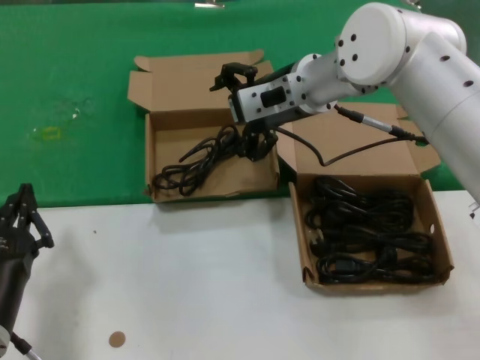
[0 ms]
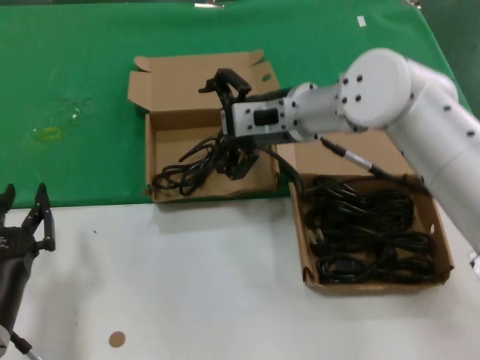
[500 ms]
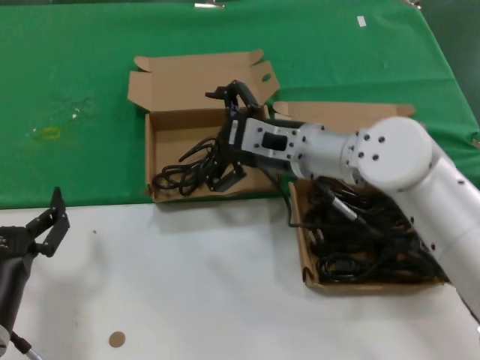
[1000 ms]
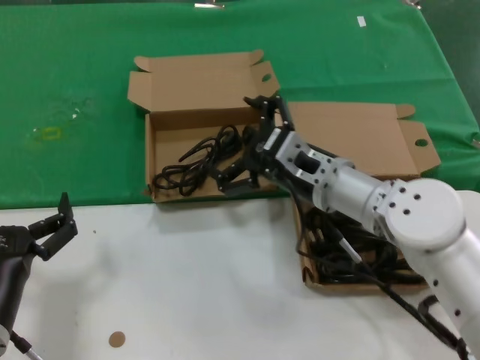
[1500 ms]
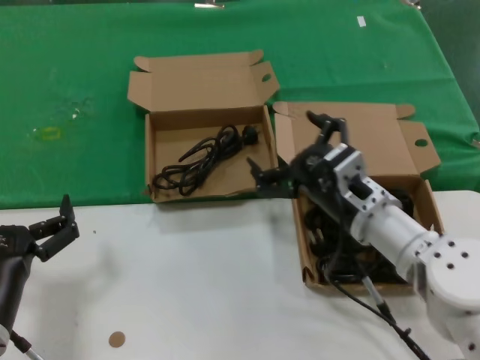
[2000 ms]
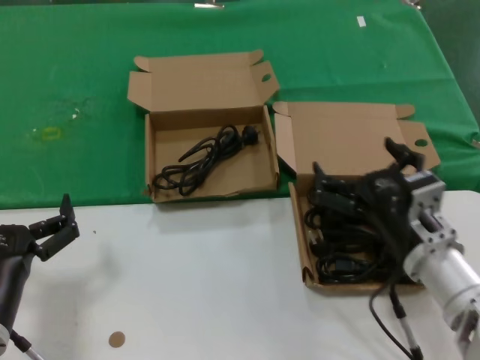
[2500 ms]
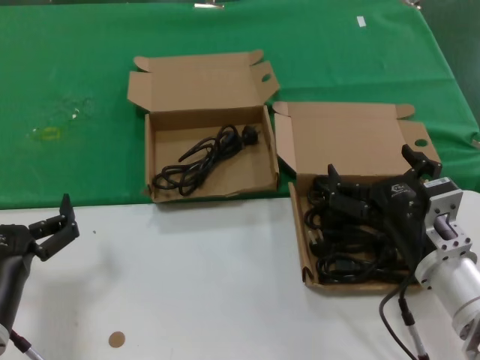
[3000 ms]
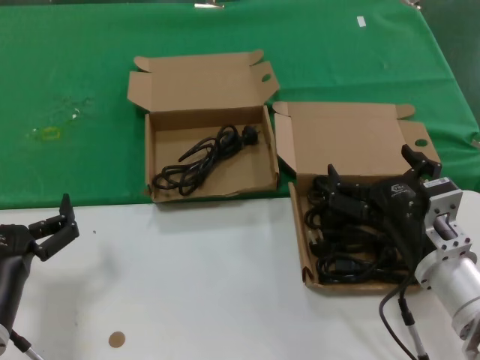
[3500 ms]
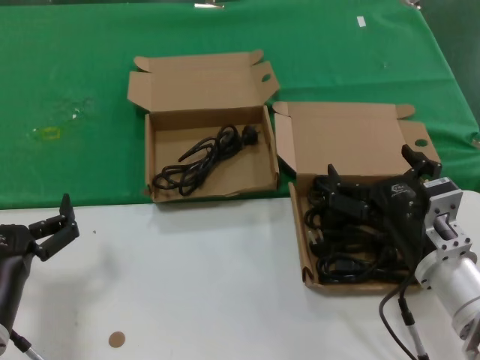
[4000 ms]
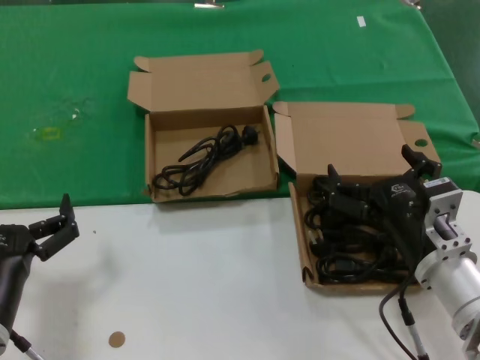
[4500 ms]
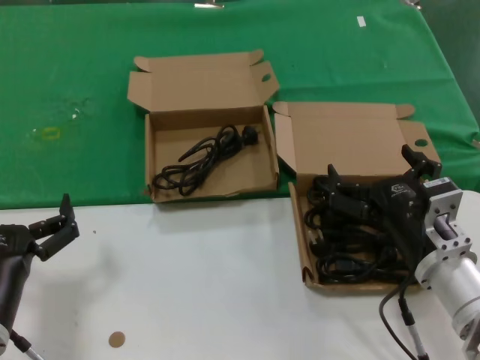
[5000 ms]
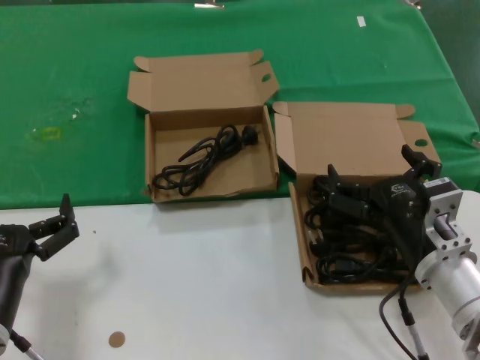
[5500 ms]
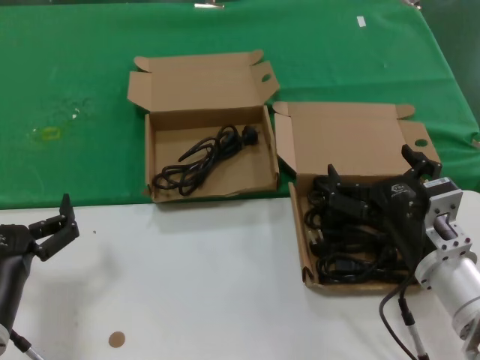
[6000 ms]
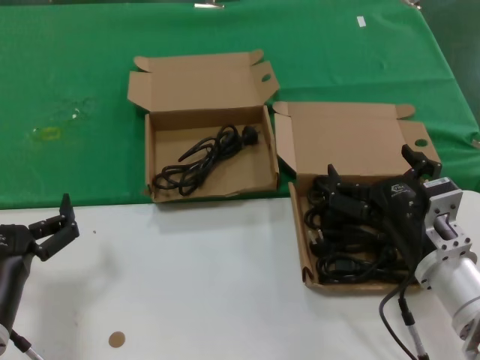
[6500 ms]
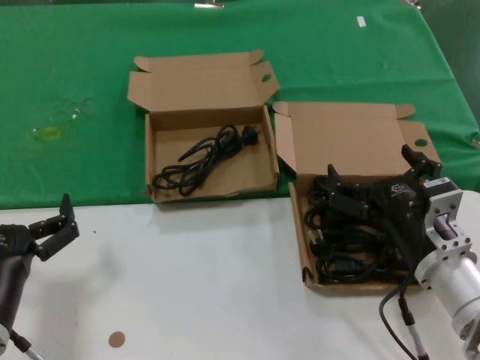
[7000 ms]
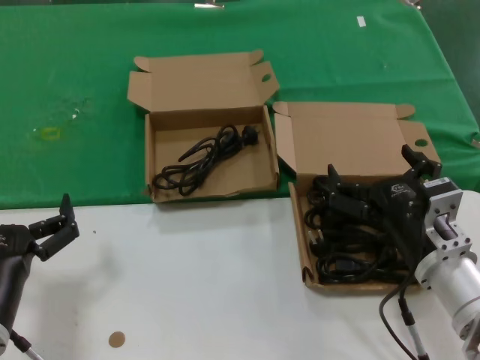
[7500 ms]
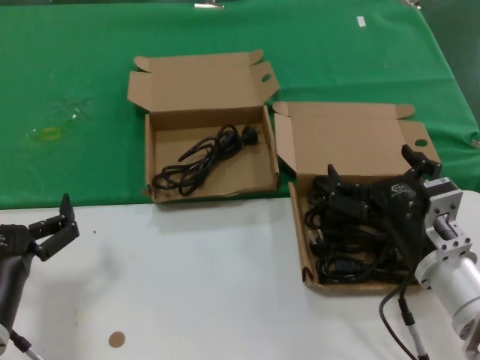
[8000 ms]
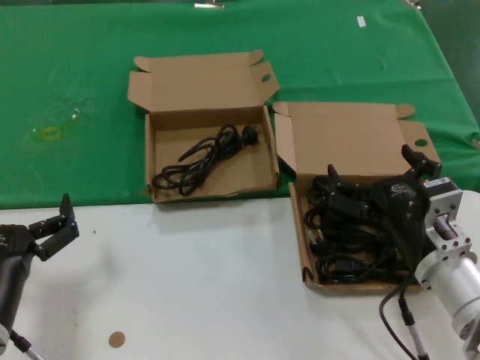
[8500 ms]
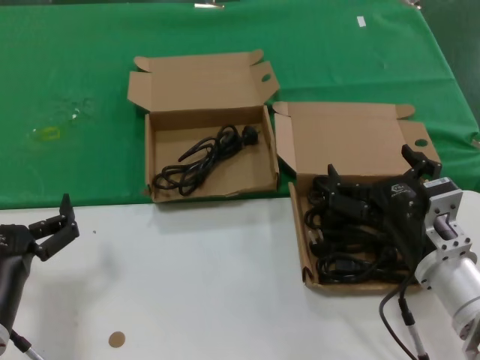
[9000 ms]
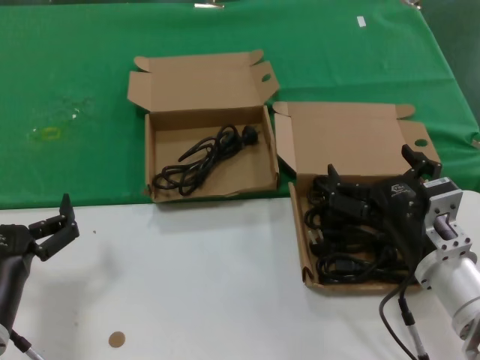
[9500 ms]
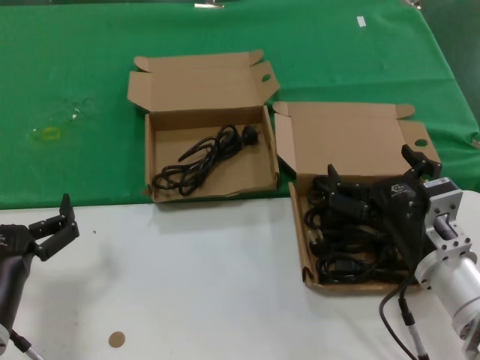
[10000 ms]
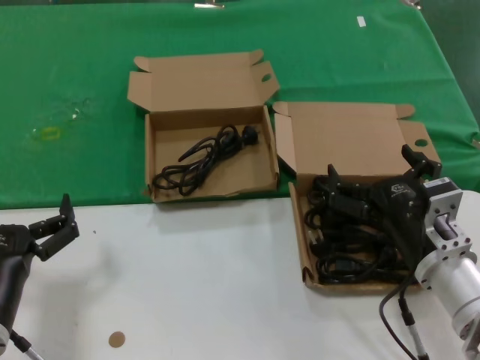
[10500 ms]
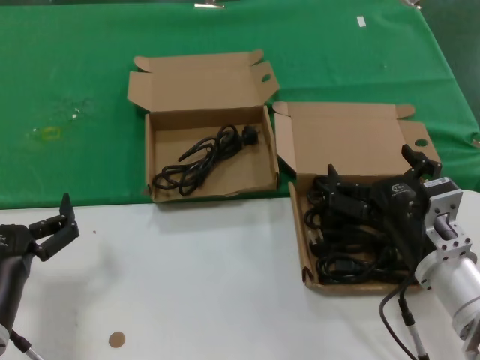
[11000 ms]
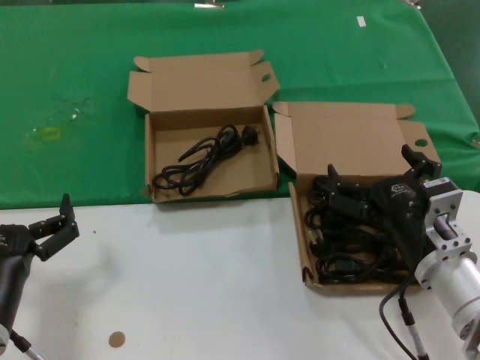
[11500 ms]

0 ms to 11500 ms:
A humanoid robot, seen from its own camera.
Task of the whole recording: take the parts from the box containing them and put them into an empty box.
0 ms to 2000 ms: The right hand goes some 25 cm downward and backward.
2000 ms to 4000 ms: The right hand shifts some 10 cm backward and to the right.
4000 ms to 11500 ms: The two hands keep their place.
